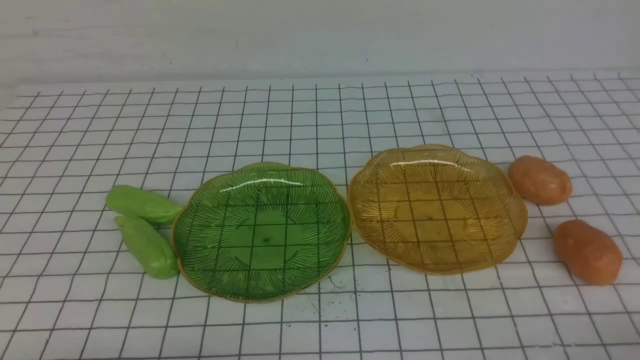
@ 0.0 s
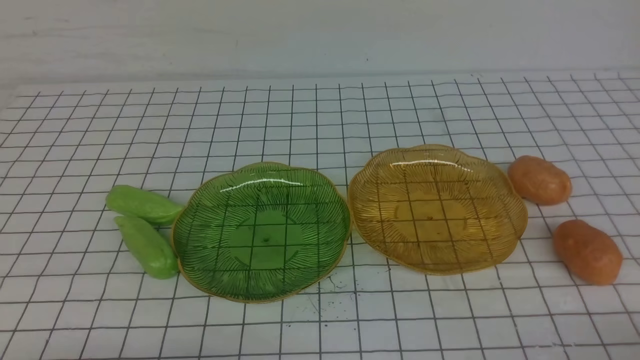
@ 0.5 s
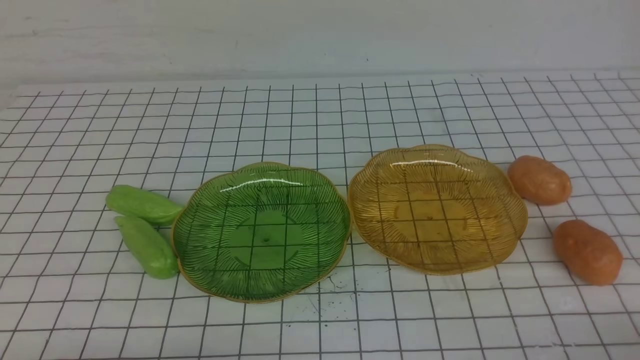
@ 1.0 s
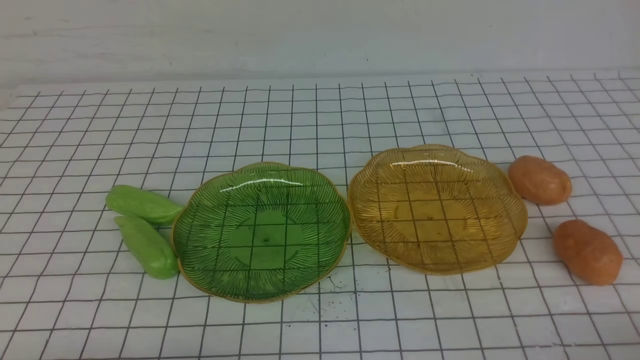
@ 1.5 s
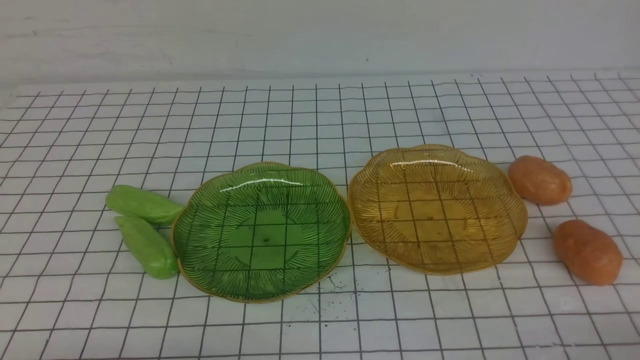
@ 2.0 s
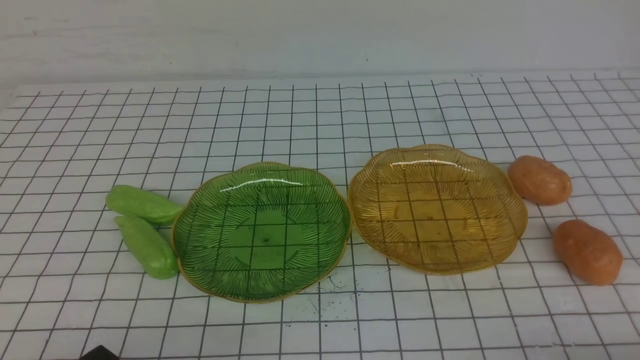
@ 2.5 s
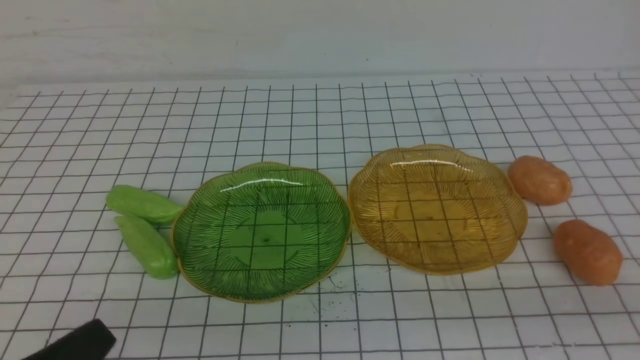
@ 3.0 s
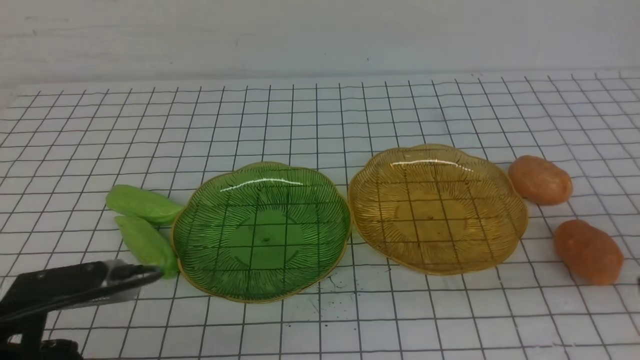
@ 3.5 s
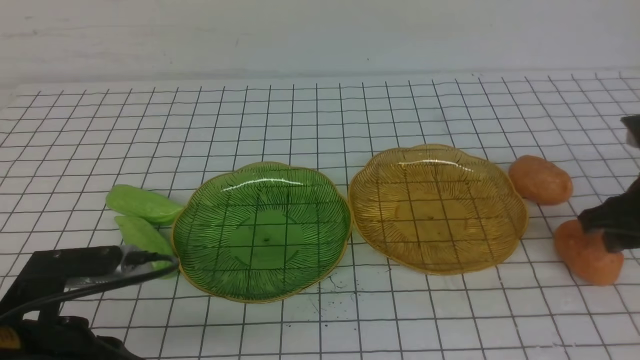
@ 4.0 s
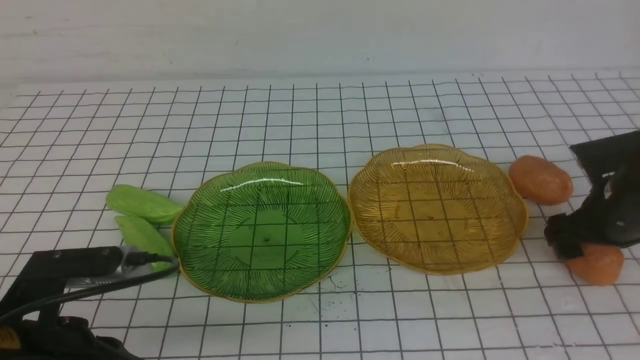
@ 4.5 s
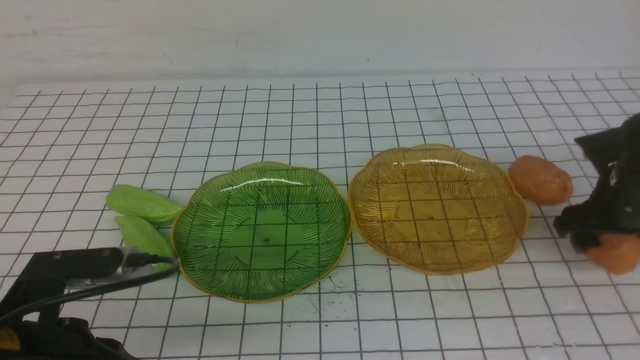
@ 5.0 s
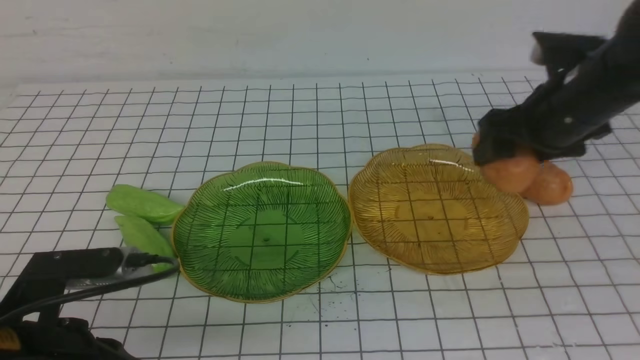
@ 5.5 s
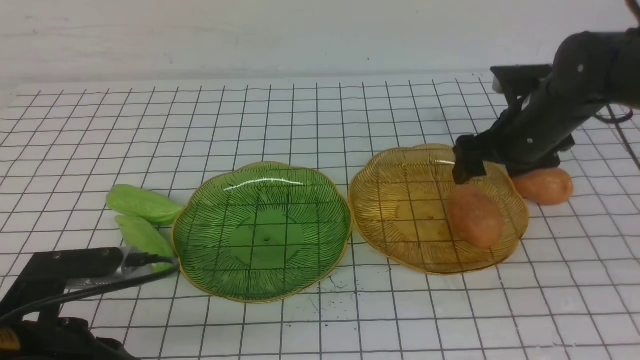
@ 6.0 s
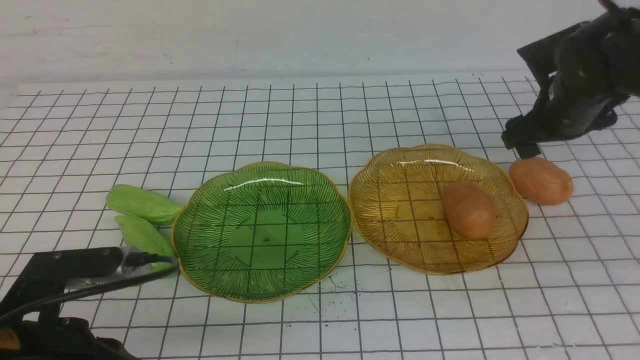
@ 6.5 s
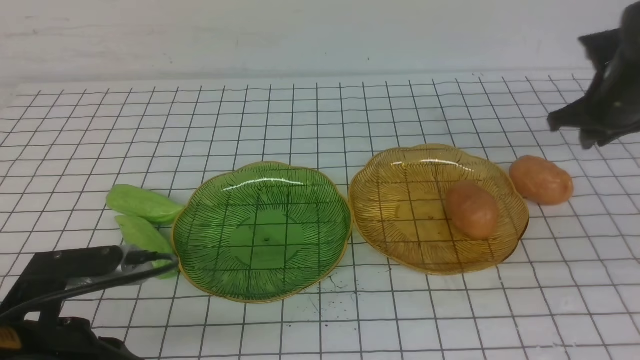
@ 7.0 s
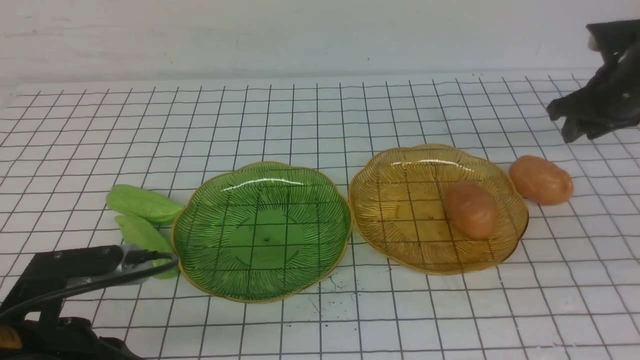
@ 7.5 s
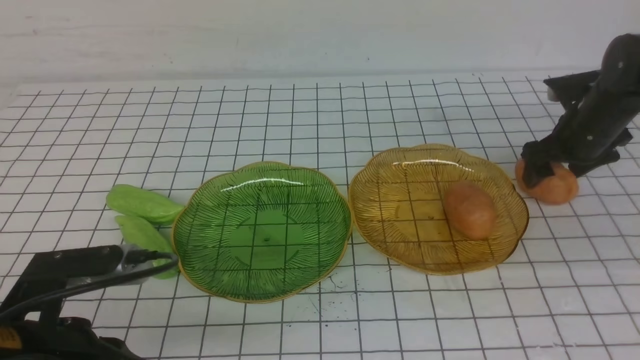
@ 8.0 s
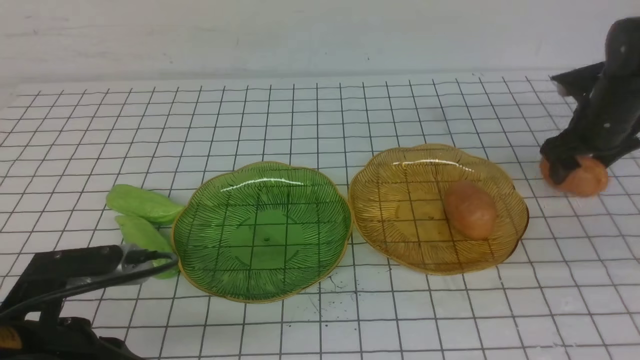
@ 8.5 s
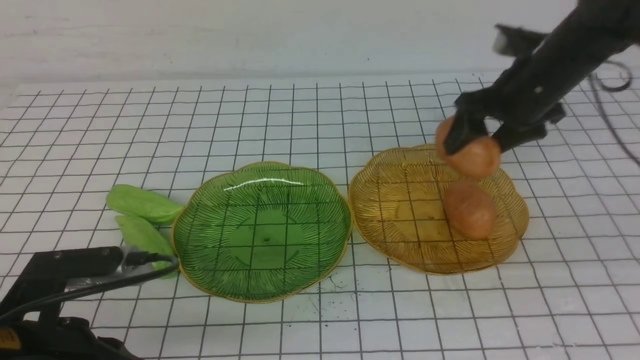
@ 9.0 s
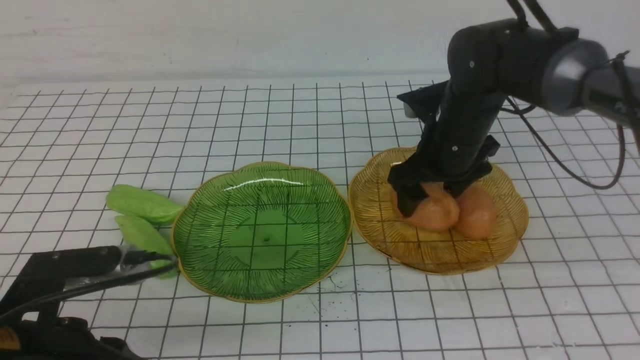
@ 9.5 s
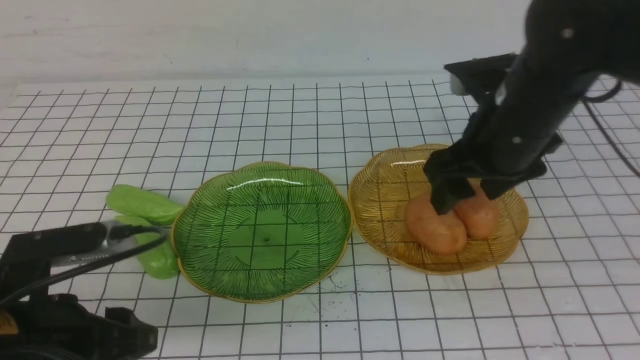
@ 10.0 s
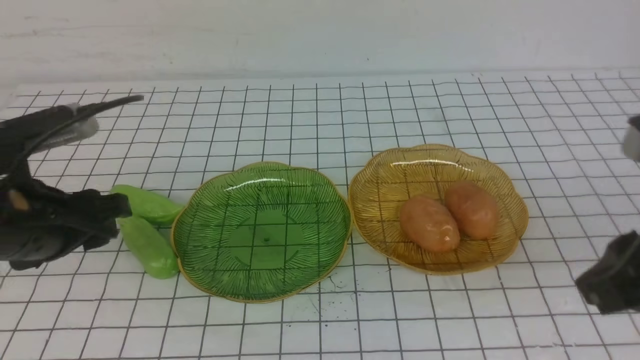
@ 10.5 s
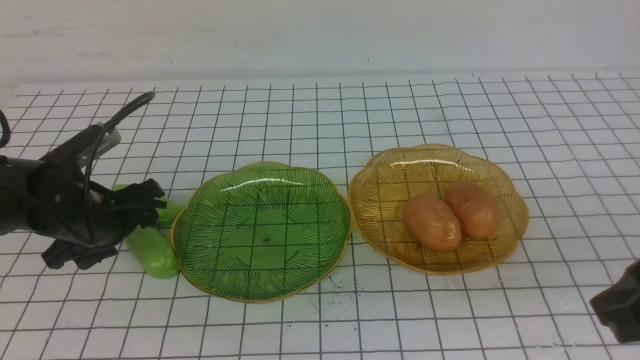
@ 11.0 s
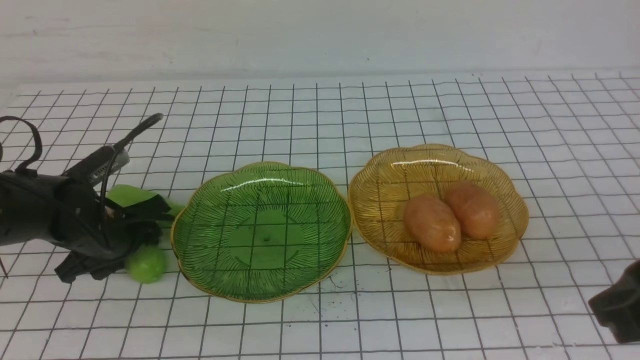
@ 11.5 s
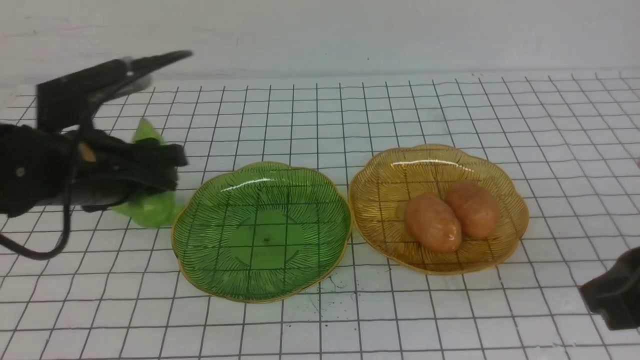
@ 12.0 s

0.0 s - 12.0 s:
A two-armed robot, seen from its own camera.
Step, 0.0 s - 5.5 s: Grab a potato with your right arm and put it on the right plate.
Step, 6.5 s - 9.5 s: Grab a potato with your right arm and put it on the right plate.
2.0 s - 4.0 s: The left gripper is displaced forward and upward by roughly 10 cm. The right gripper travels forward by about 25 cm, and opens up.
4.0 s - 6.0 s: The right gripper travels forward and to the left by some 15 cm, and opens its fingers.
6.0 s - 8.0 s: The right gripper moves to the right and forward, approximately 10 cm, and closes, then opens again.
8.0 s - 10.0 s: The right gripper goes approximately 25 cm to the left, backward and upward. The left gripper opens.
10.0 s - 12.0 s: The left gripper goes some 15 cm forward, while the right gripper moves backward and to the right, approximately 15 cm, and closes.

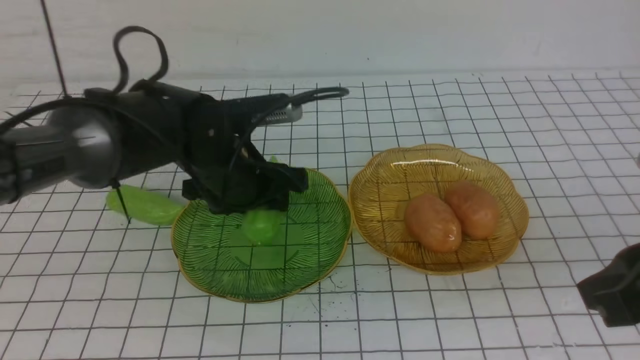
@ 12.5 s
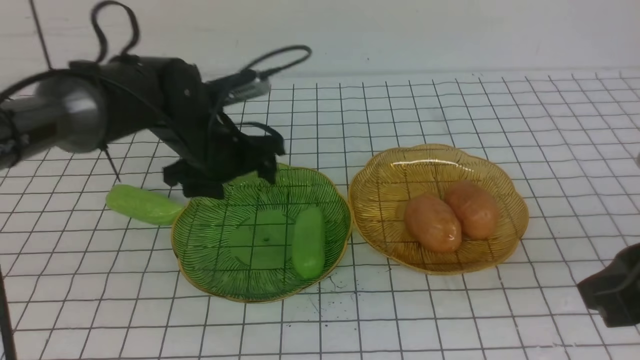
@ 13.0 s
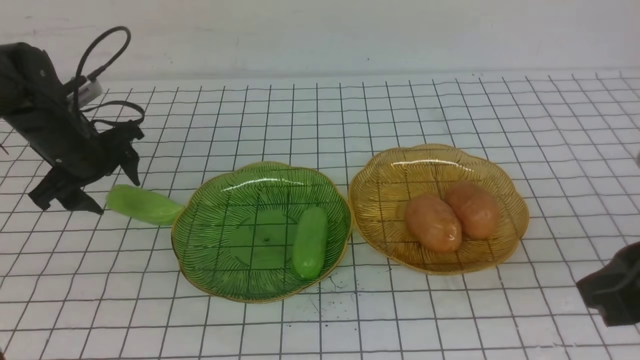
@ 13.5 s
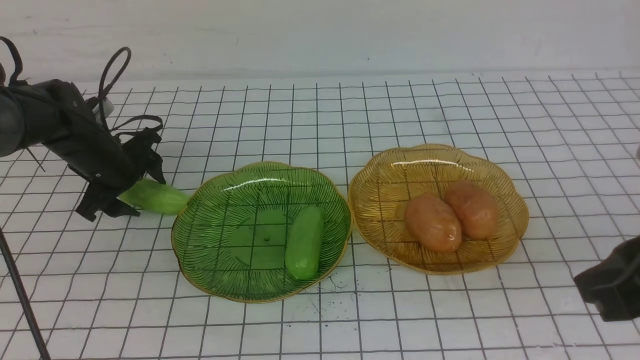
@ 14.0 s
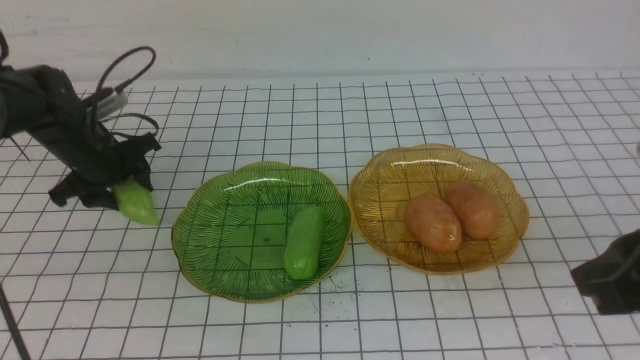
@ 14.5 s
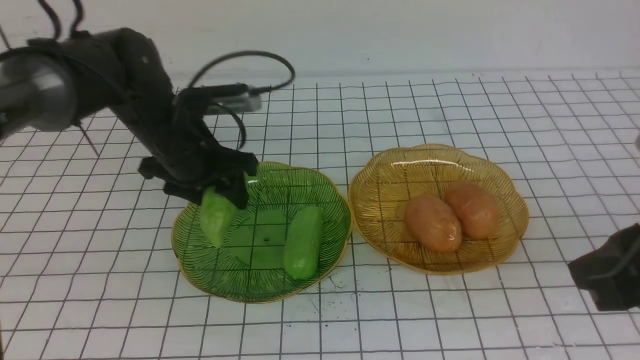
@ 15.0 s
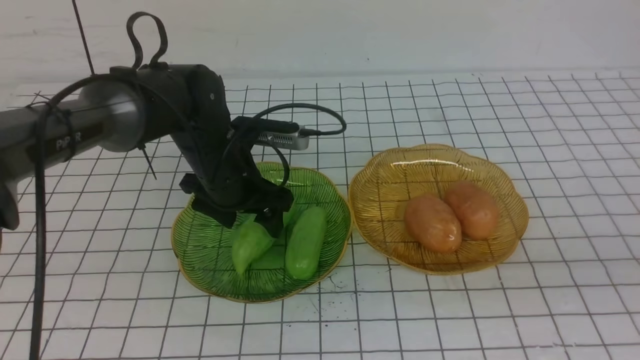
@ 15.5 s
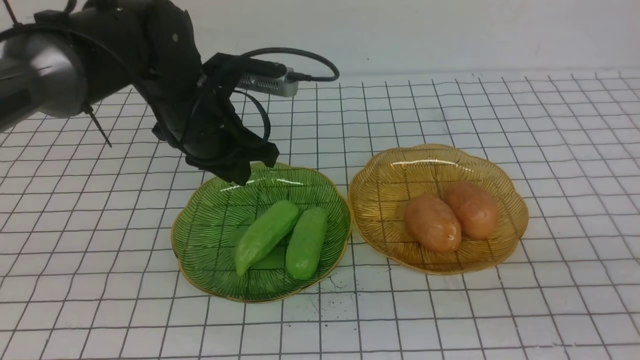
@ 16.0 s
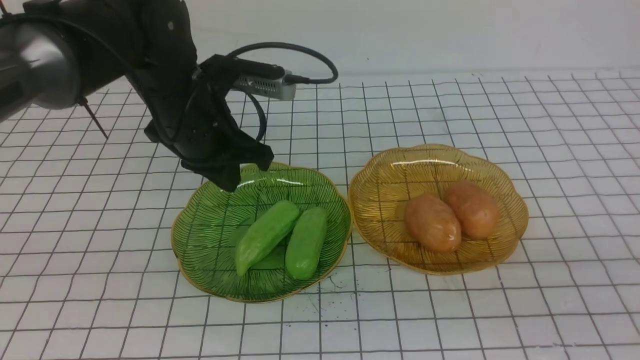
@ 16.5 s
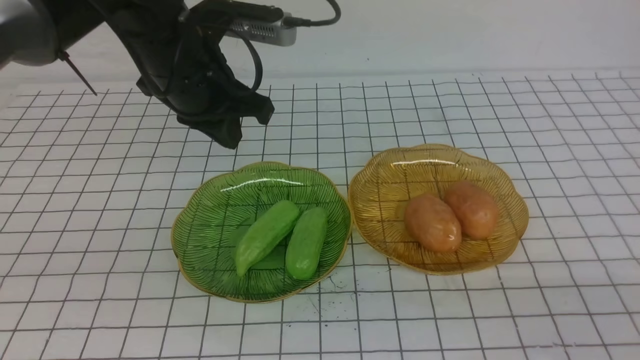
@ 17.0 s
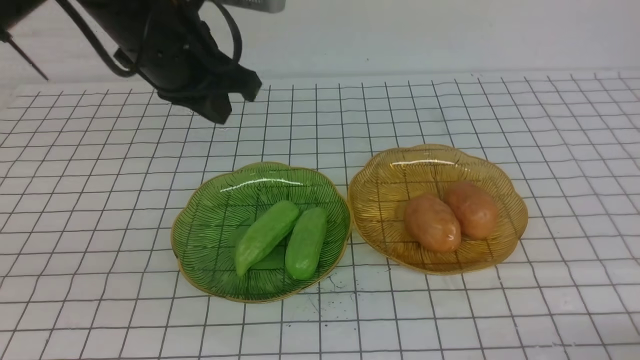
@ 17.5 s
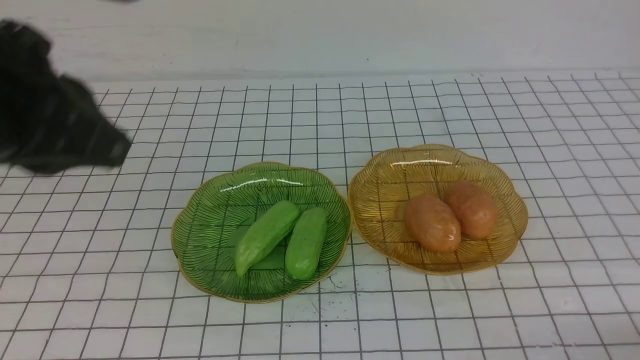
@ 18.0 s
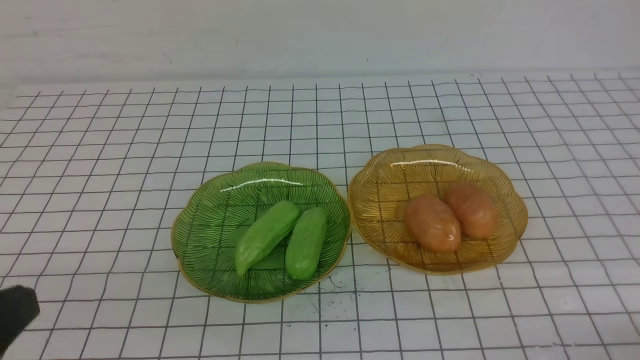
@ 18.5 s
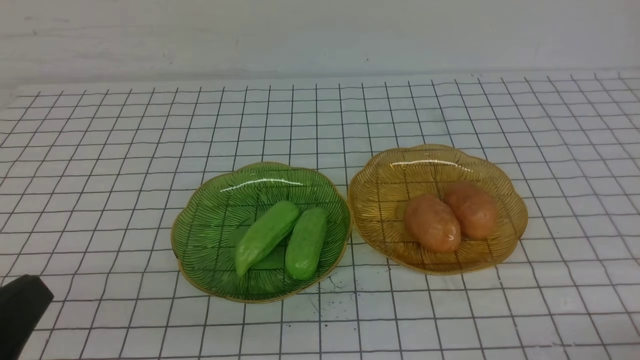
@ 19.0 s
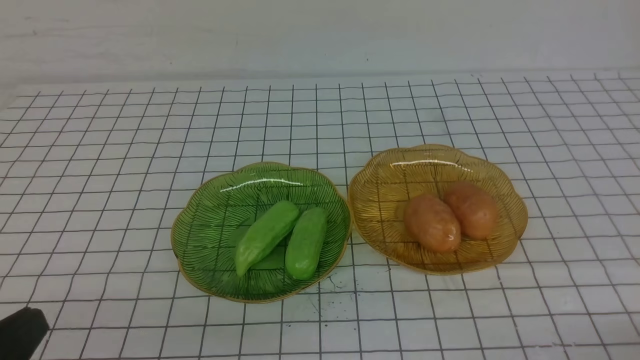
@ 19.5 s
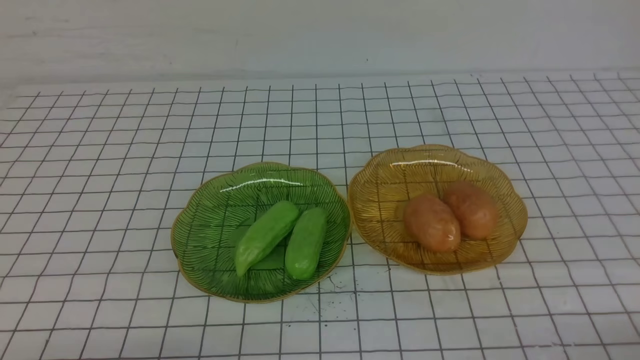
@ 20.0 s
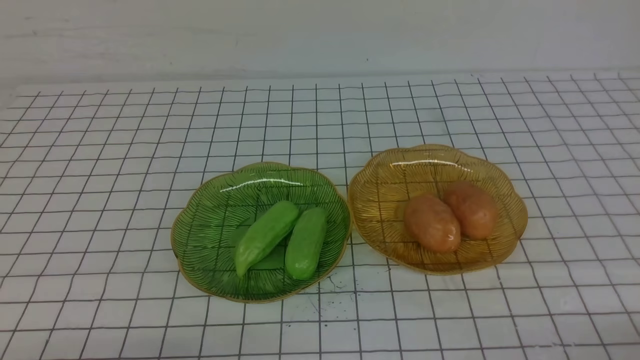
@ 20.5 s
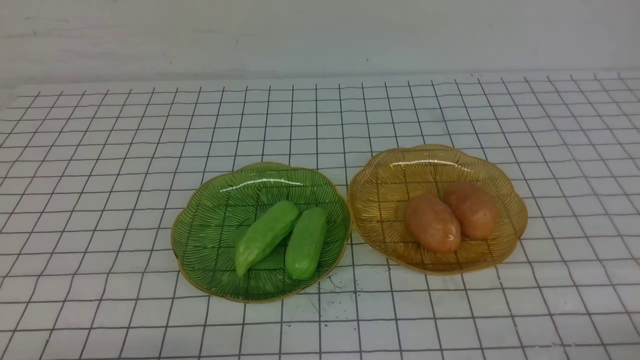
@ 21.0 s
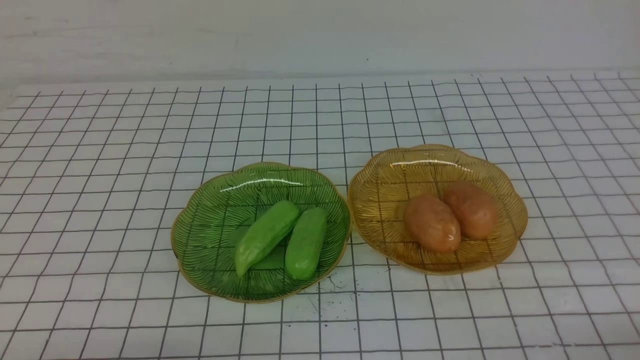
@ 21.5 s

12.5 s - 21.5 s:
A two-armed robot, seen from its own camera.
Step, 12.5 s - 15.5 s: use the left arm to grab a chayote and put it into the left plate.
12.5 s - 14.5 s: The left gripper goes about 15 cm to the left.
14.5 s - 17.0 s: The right gripper shifts some 15 cm downward, backward and to the right. Meanwhile the left gripper moves to the right and upward, approximately 20 cm, and closes its fingers.
17.0 s - 19.5 s: The left gripper moves backward, approximately 30 cm, while the right gripper is displaced downward by roughly 5 cm.
19.5 s - 21.5 s: The left gripper is displaced downward by approximately 10 cm.
